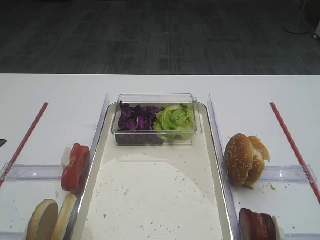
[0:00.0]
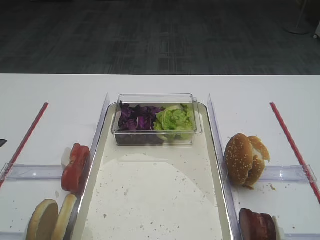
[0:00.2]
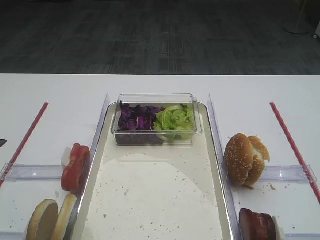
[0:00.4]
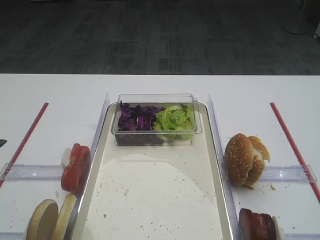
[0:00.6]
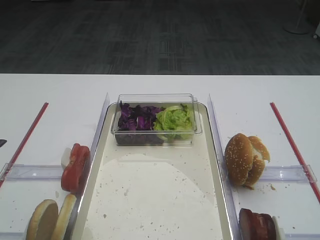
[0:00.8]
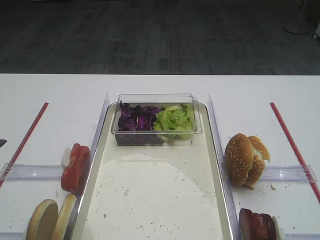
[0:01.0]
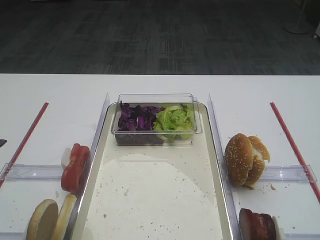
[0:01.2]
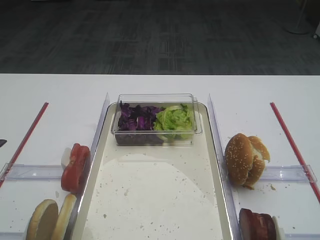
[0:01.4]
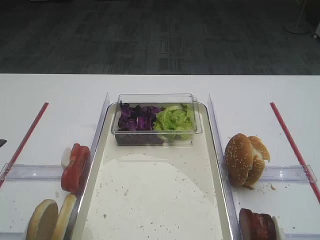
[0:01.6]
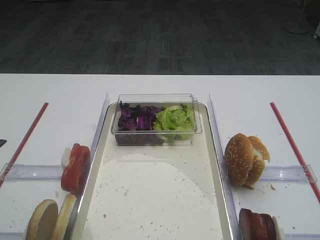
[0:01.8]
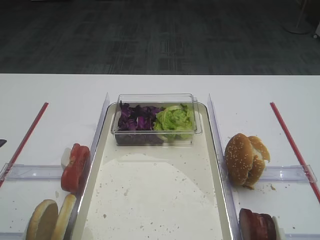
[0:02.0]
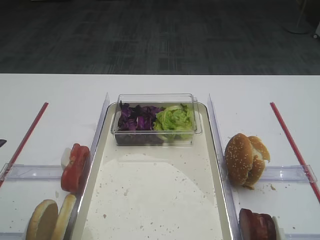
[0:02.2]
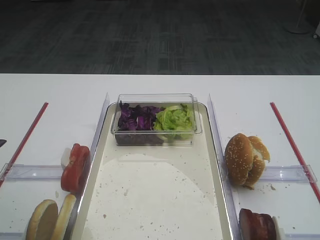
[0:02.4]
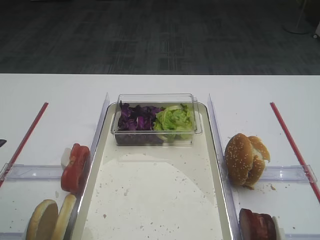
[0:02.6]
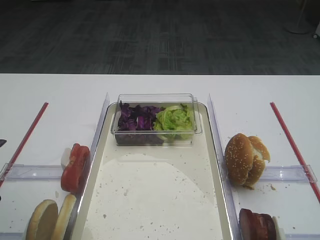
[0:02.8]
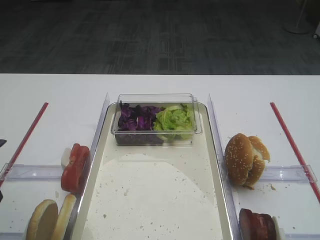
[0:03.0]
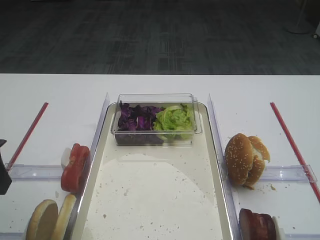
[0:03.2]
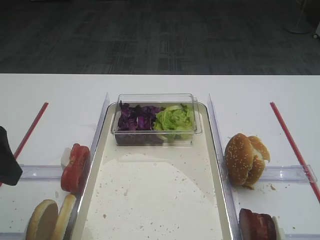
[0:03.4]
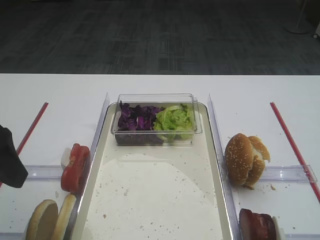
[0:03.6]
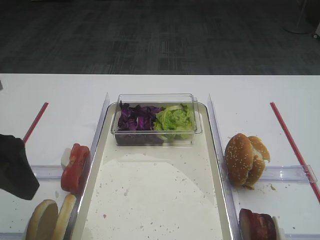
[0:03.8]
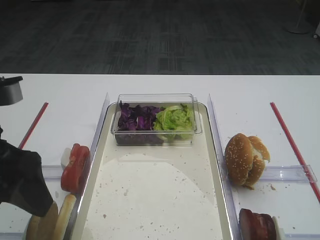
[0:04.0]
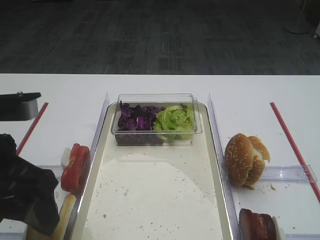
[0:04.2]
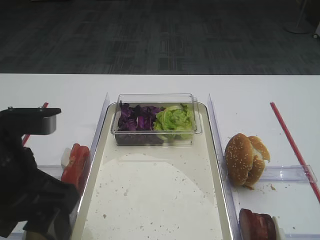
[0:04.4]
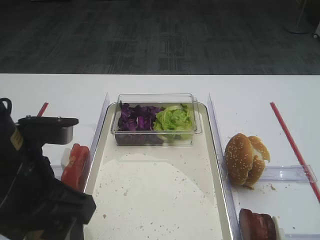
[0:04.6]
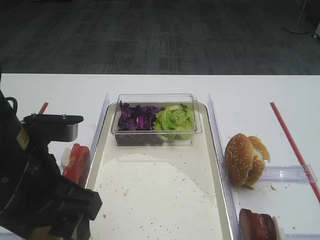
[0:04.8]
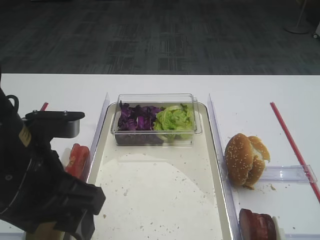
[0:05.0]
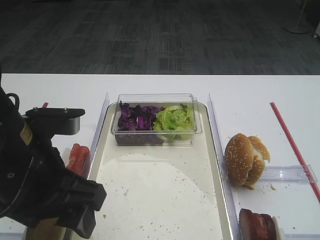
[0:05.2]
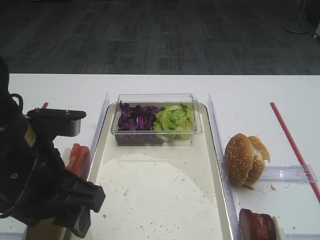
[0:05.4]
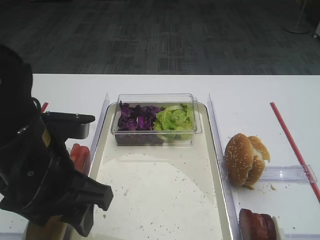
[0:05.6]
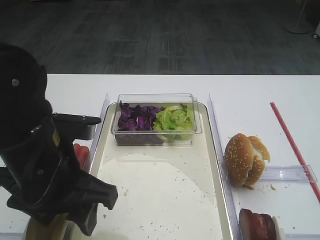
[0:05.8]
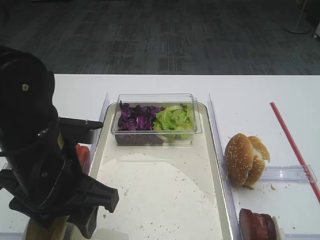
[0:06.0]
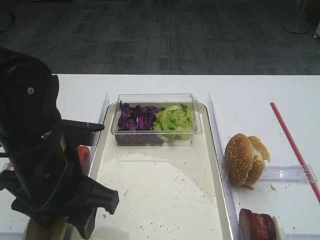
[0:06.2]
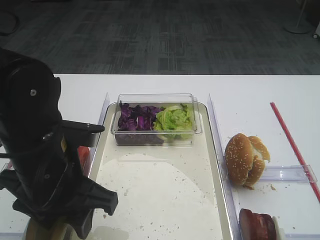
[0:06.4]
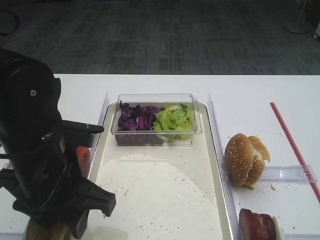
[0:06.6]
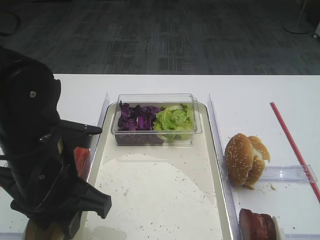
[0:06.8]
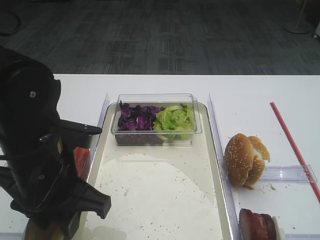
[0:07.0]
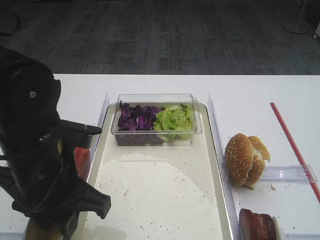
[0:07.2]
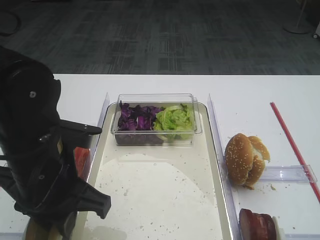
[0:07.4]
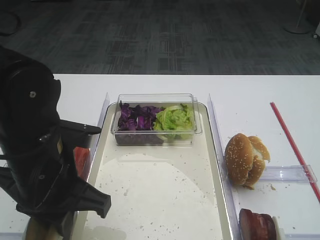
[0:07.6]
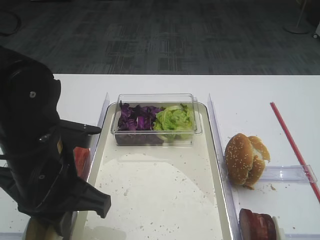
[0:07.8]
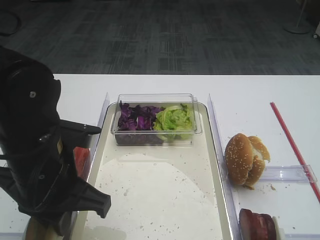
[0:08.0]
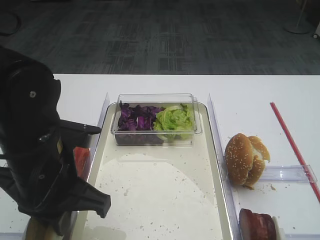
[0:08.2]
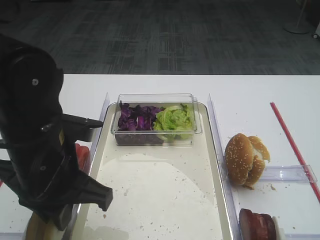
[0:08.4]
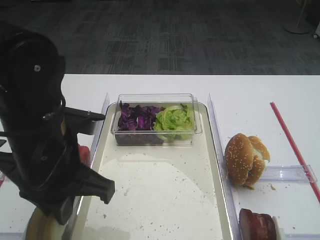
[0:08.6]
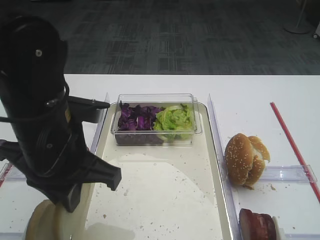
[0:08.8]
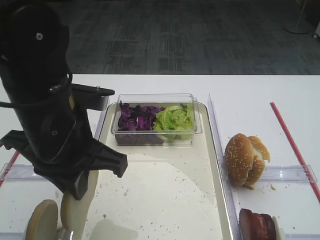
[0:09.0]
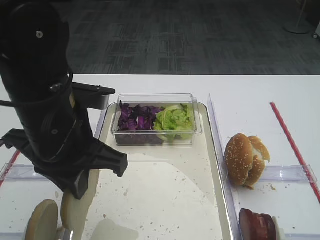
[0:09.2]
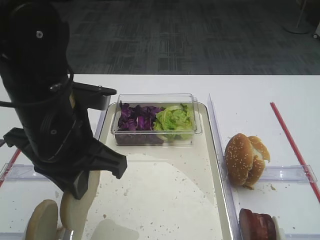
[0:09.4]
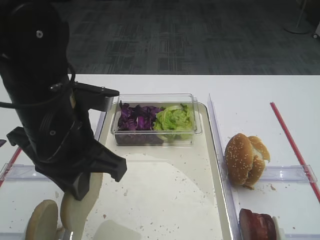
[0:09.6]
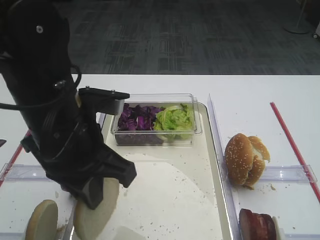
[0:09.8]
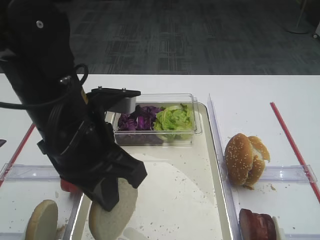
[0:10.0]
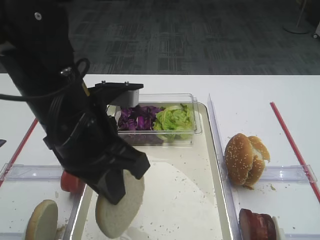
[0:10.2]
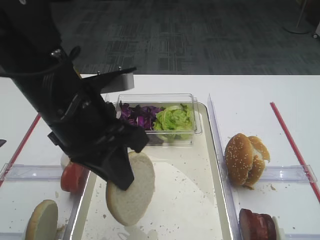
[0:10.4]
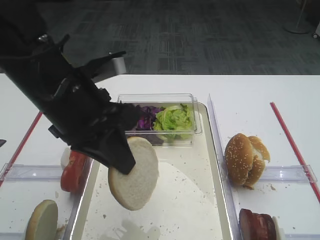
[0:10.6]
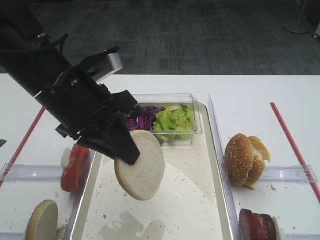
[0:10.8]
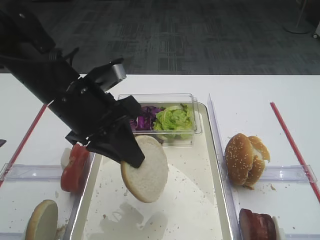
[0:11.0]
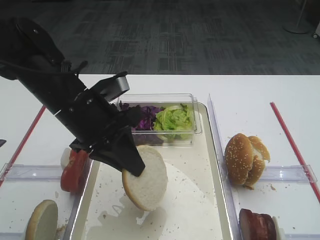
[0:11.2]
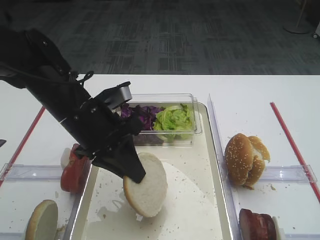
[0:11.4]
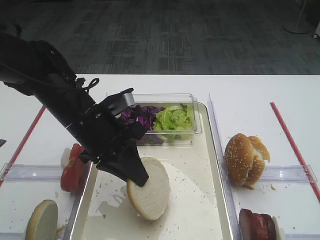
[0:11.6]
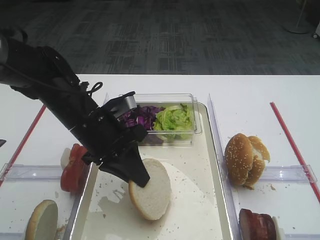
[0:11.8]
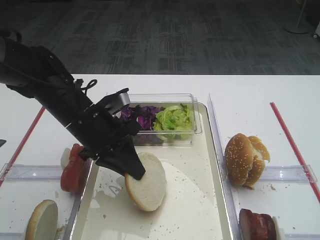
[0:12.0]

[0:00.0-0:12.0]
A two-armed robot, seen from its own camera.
Step, 0:00.0 to 0:09.0: Pick up the bread slice with the left gripper.
0:03.0 to 0:04.4: The left gripper travels to the right by roughly 10 cm.
0:04.4 to 0:06.0: The left gripper moves approximately 5 cm.
0:06.0 to 0:07.6: The left gripper closes up.
0:07.6 to 0:09.0: The left gripper shifts by some 5 cm.
0:10.4 to 0:12.0: The left gripper travels downward and forward by some 15 cm.

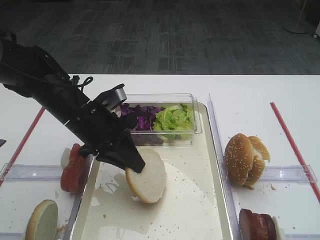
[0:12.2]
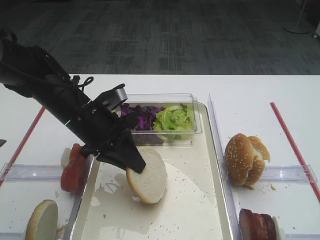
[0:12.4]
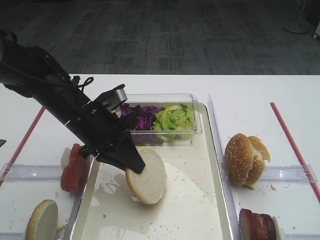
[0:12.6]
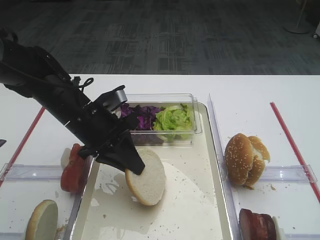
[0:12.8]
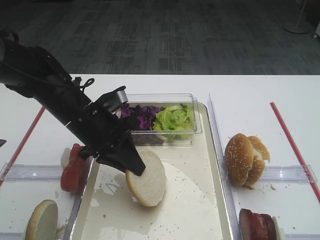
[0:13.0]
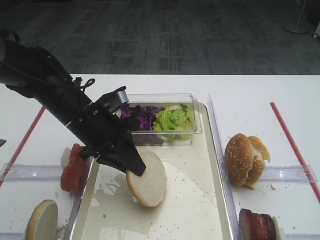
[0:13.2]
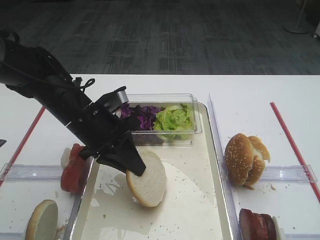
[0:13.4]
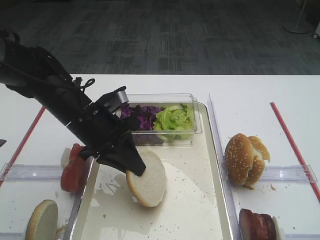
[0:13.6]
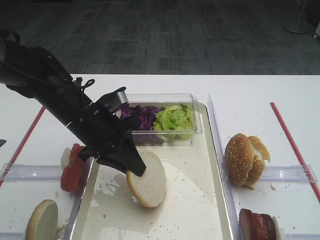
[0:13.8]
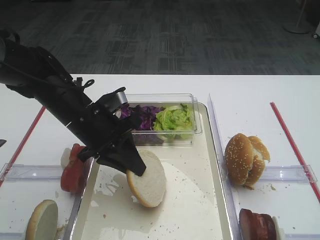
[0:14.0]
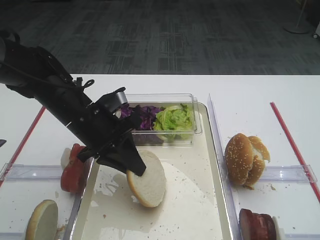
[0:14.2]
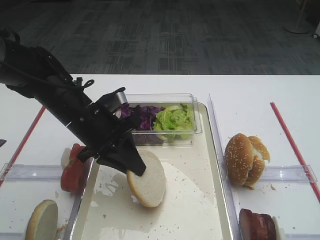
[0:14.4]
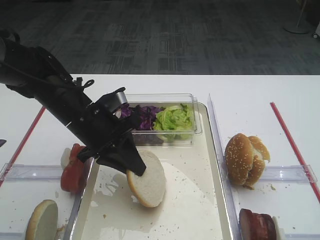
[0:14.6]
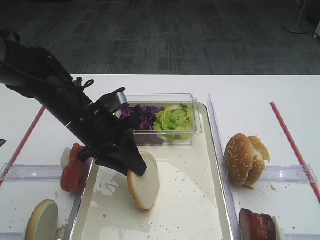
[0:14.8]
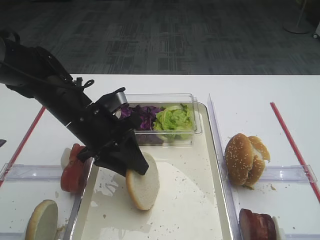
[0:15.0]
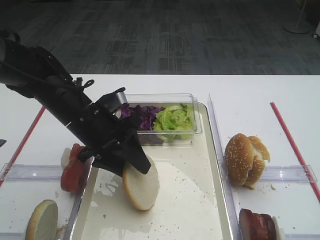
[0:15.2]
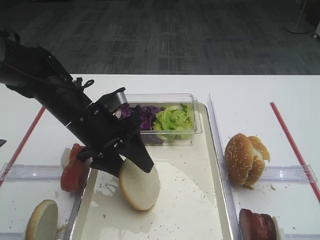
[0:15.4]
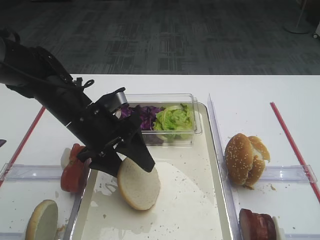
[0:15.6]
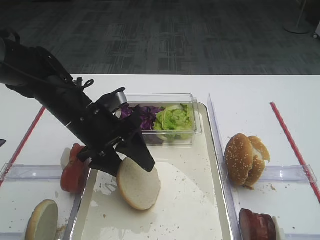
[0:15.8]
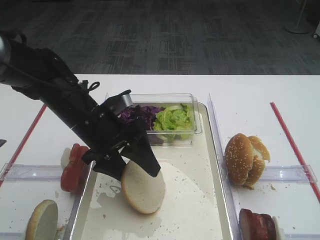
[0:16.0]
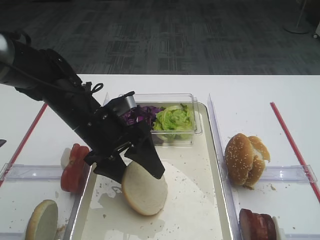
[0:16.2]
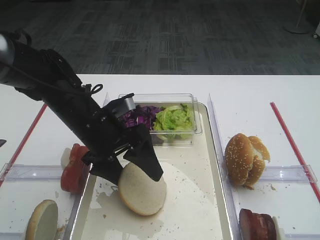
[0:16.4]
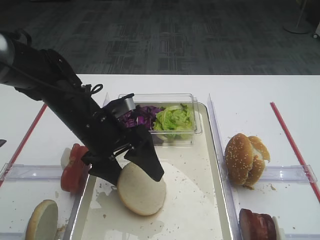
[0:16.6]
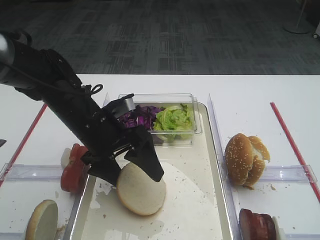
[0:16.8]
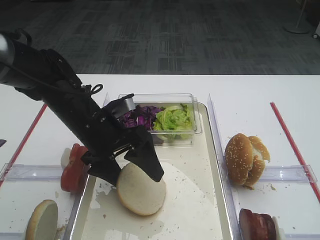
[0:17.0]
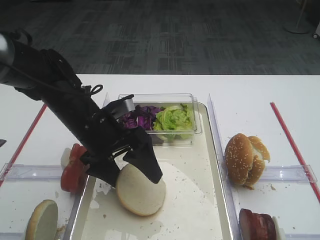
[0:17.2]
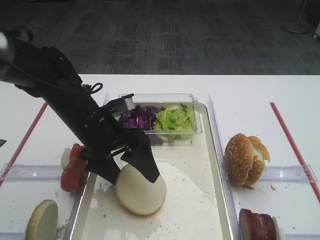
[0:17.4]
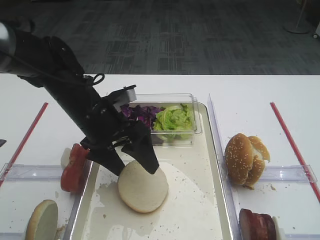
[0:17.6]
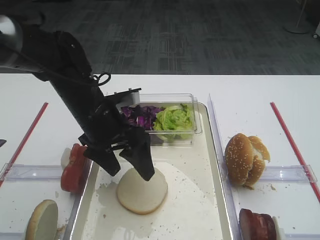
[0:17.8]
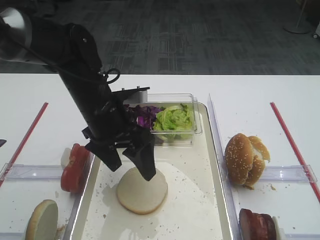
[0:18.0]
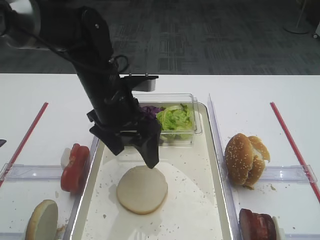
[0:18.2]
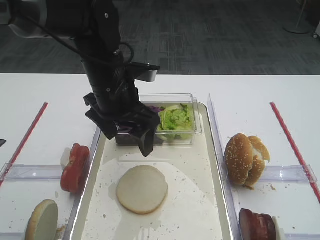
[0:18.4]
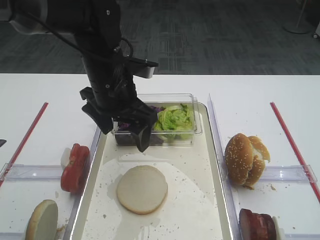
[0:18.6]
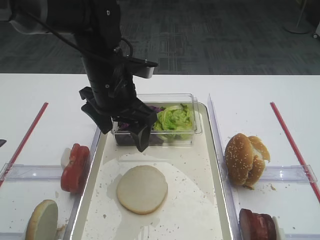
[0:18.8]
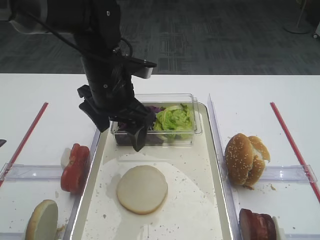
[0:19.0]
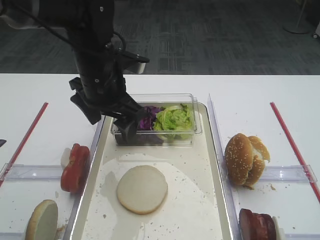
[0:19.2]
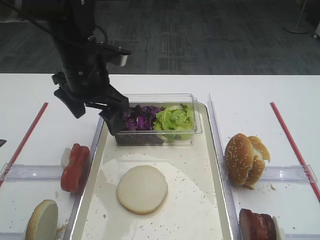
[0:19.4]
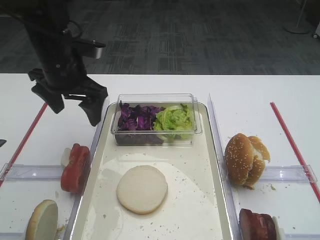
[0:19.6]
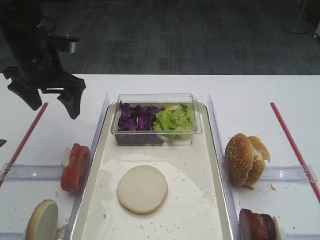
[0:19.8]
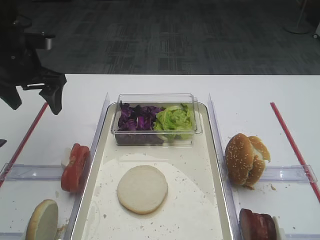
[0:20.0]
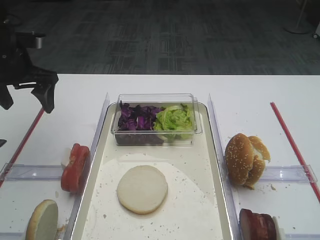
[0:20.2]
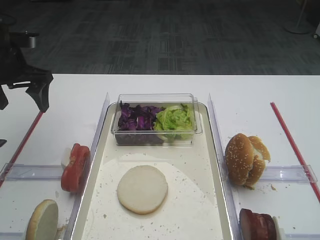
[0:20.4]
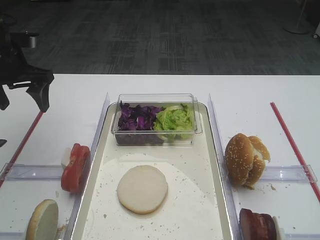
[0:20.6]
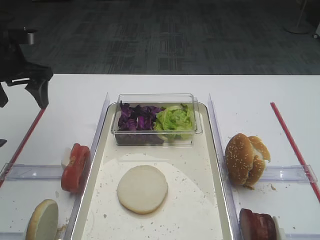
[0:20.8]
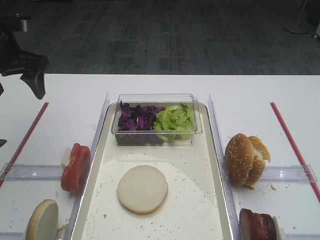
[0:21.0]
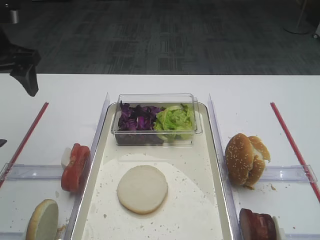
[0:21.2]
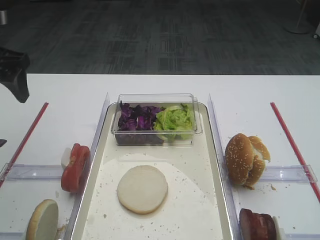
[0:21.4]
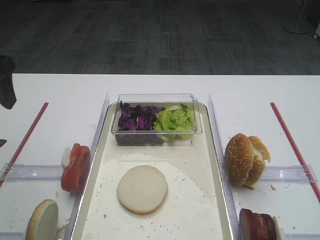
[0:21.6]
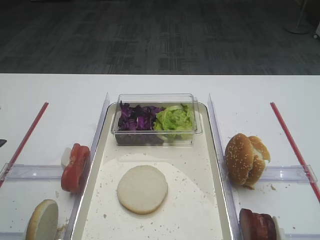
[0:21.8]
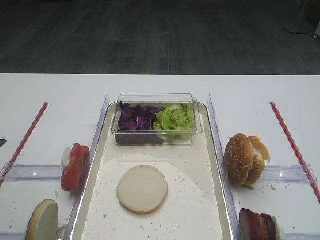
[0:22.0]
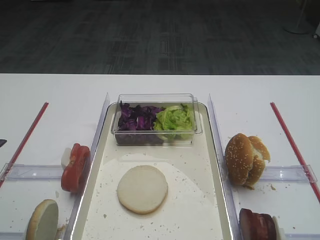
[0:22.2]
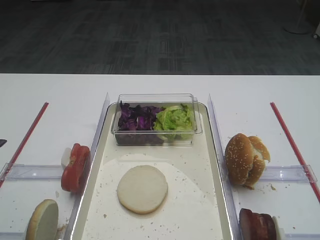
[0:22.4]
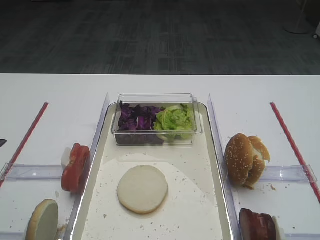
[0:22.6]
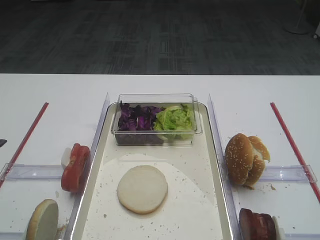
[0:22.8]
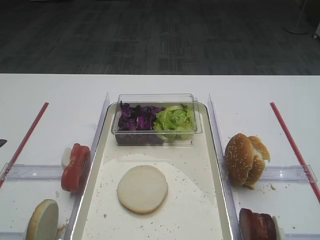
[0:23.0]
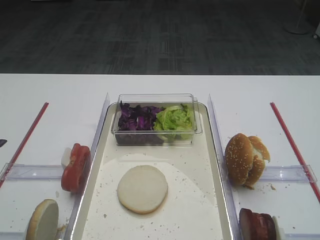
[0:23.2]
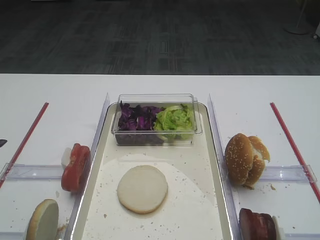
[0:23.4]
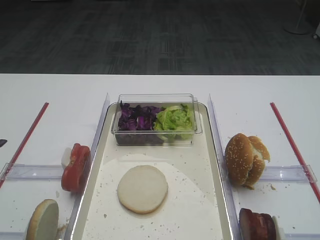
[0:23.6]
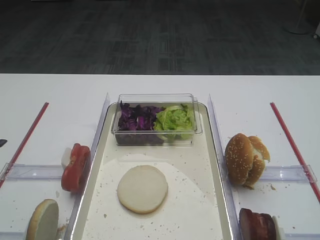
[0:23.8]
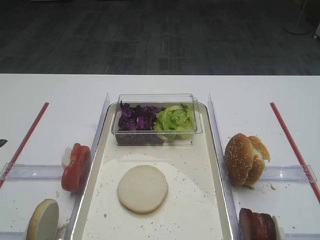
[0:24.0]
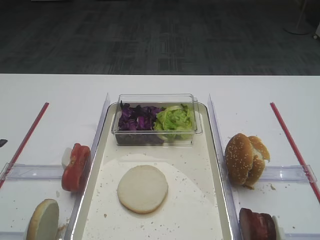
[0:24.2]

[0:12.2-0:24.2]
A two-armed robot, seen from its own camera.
Step, 0:12.2 to 0:18.0: Place the bread slice on the tray with the left gripper.
0:12.2 to 0:13.8: Neither gripper changes place.
0:13.8 to 0:15.2: The left gripper opens up.
0:15.2 to 0:16.6: The left gripper opens.
0:16.6 to 0:18.2: The left gripper shifts by roughly 5 cm.
0:18.2 to 0:19.8: The left gripper goes approximately 15 cm to the left and forward.
0:19.8 to 0:21.2: The left gripper shifts approximately 10 cm to the left and upward.
0:21.2 to 0:22.6: The left gripper shifts about 30 cm backward.
